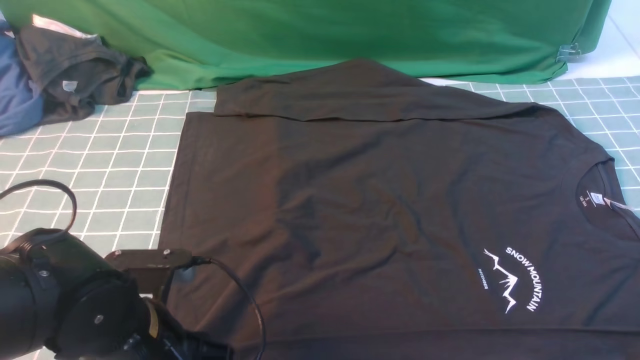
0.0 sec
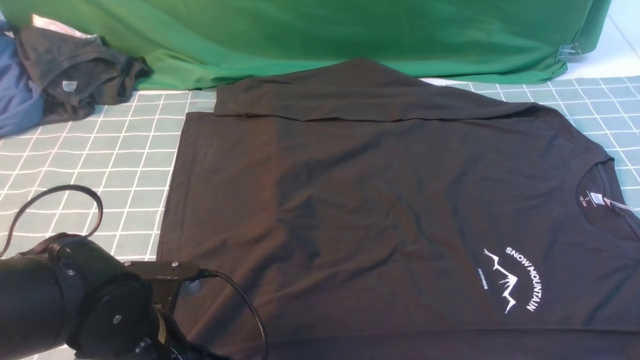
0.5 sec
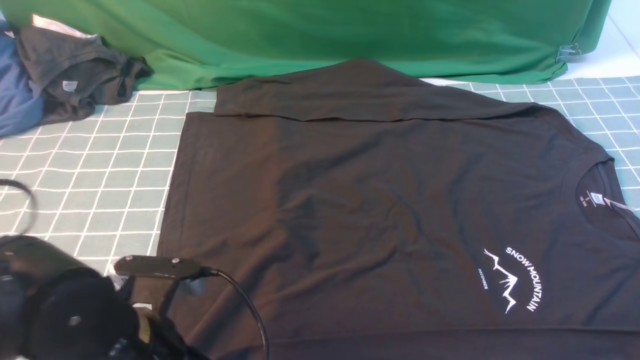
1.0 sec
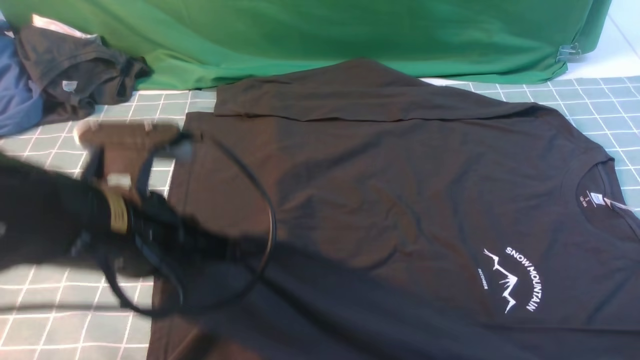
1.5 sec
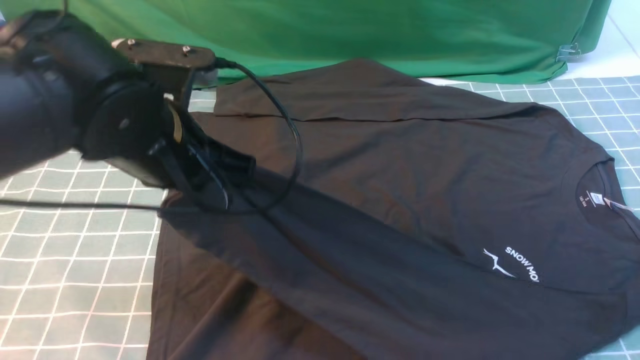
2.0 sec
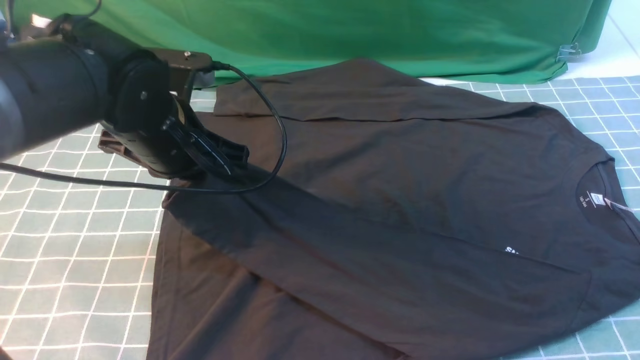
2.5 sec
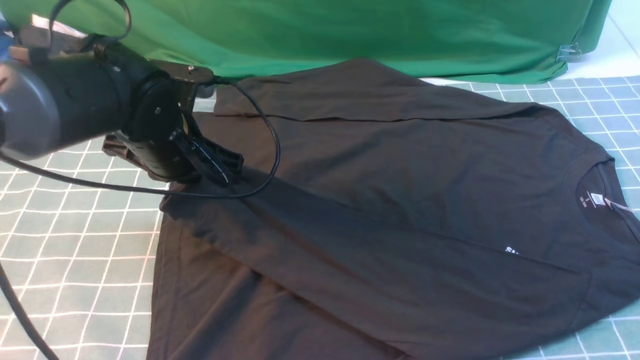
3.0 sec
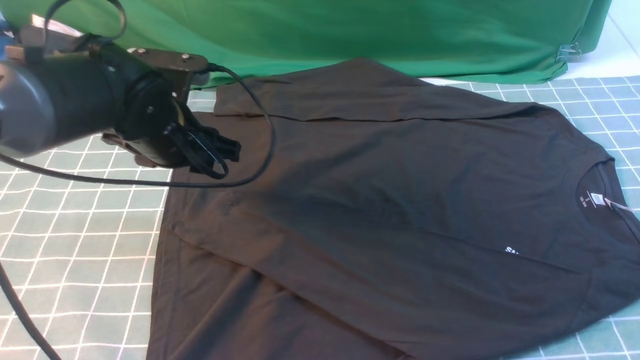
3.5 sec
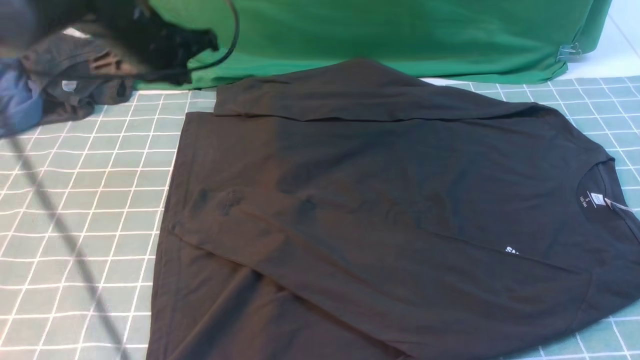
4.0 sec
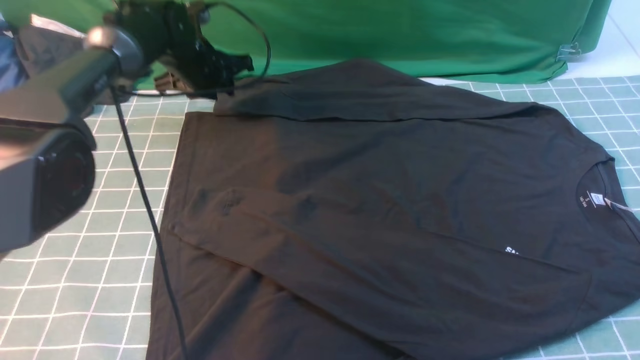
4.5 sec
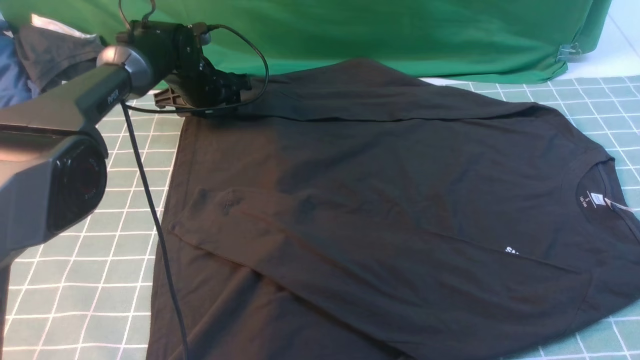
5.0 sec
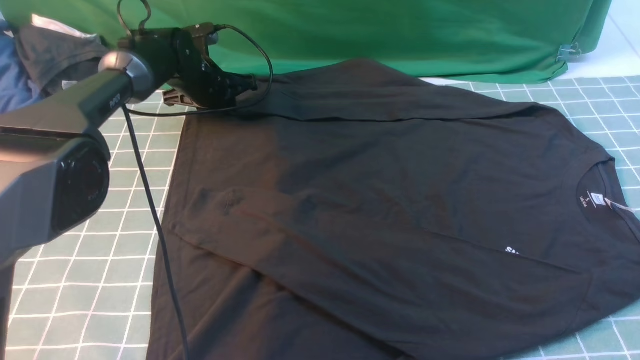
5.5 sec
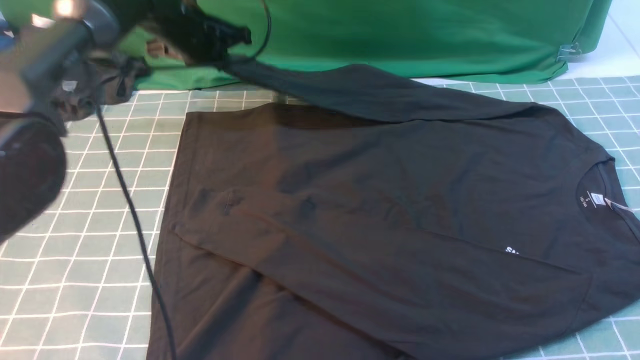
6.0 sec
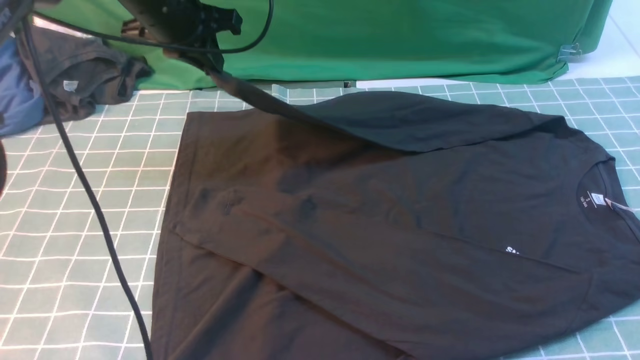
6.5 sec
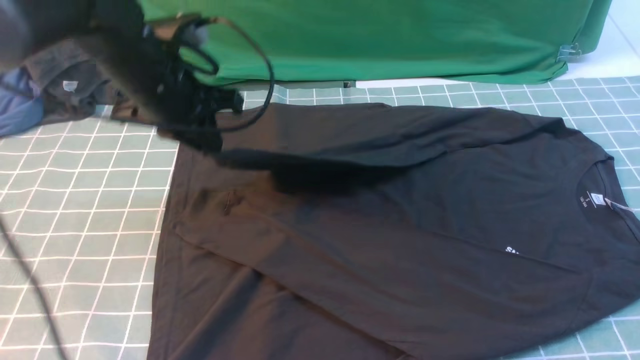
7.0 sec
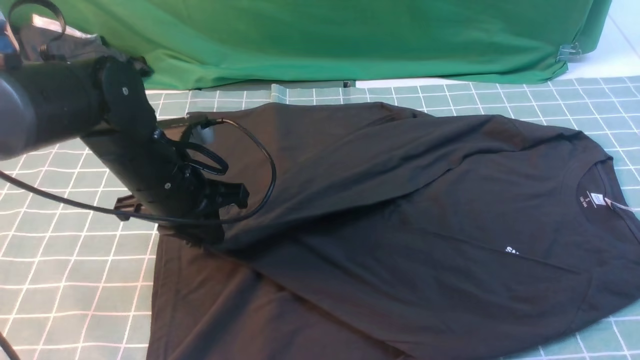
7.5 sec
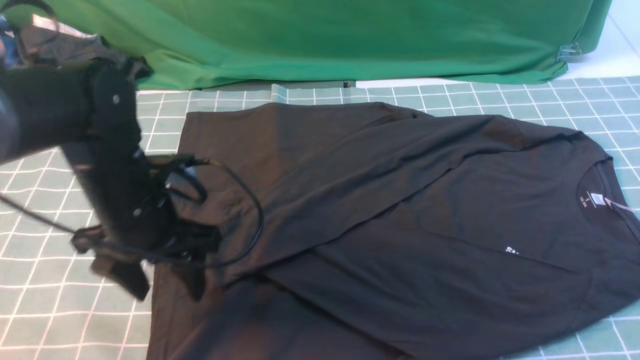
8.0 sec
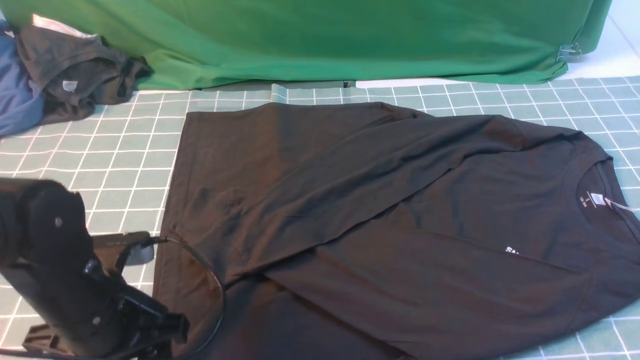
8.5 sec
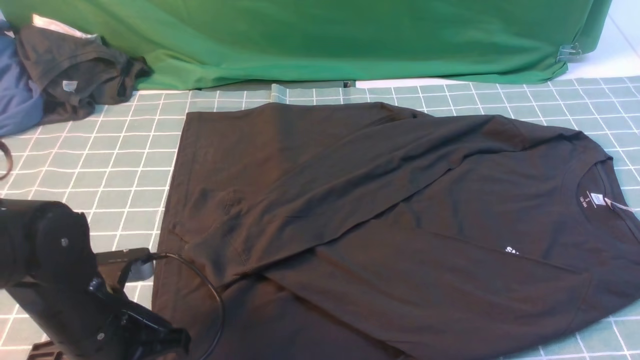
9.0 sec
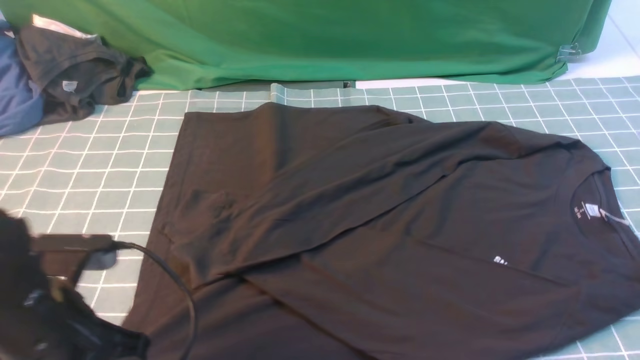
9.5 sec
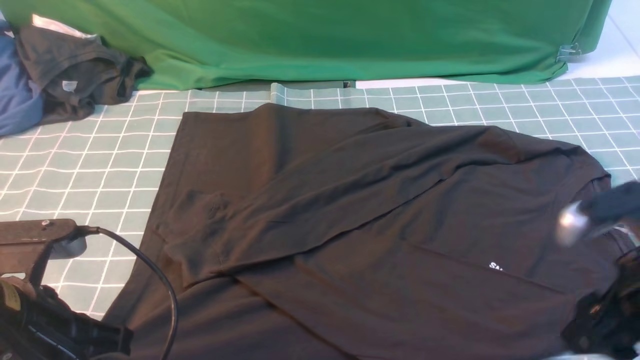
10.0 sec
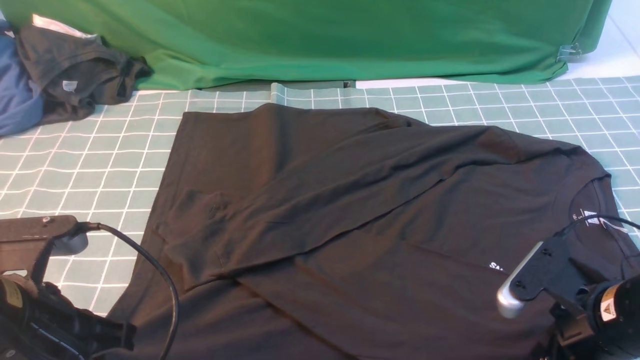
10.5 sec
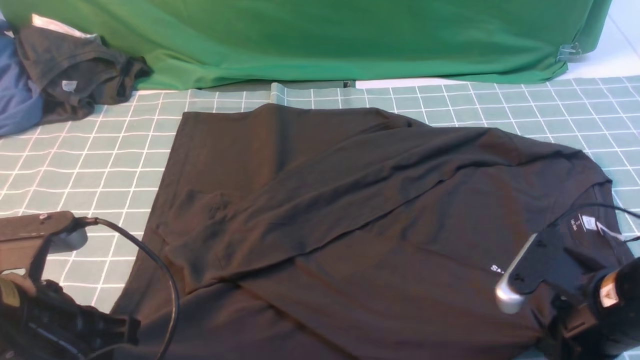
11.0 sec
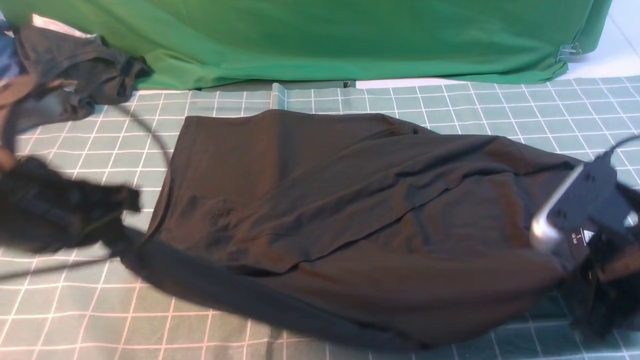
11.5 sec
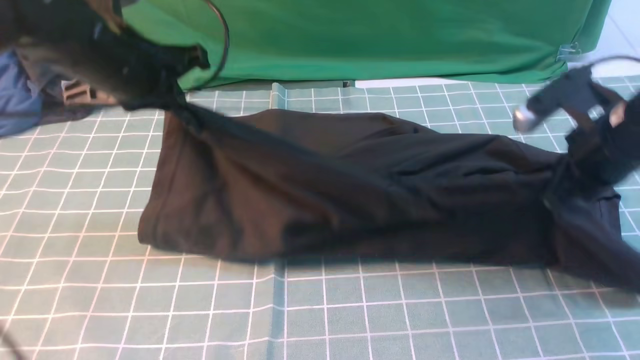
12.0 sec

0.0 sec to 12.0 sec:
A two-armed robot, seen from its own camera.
Step, 1.5 sec to 3.5 sec: use the left arm to drag and place the cuff at the centered position on the left edge of the fabric.
Step, 4.0 sec to 5.5 sec: use the left arm to clamp the cuff farthest from it.
Step, 6.0 sec to 8.0 sec: use the left arm to drag and drop the cuff onto the cuff closest to the left arm.
Step, 8.5 sec to 11.0 sec: use both arms simultaneously to clamp the lower edge of the clothing fabric.
0.0 sec to 2.0 sec: The left gripper travels upward and forward by approximately 15 cm, and closes.
2.0 sec to 4.0 sec: The left gripper heads forward, covering approximately 20 cm, and opens and closes again.
4.0 sec to 6.0 sec: The left gripper is displaced forward by some 5 cm, reaches approximately 10 cm downward, then returns, and opens, then closes again.
6.0 sec to 8.0 sec: The right gripper shifts roughly 5 cm forward, while the left gripper heads backward, covering approximately 25 cm, and opens up.
8.0 sec to 10.0 sec: The left gripper is displaced backward by some 15 cm, and closes its fingers. The right gripper travels downward by approximately 10 cm, and opens its fingers.
10.0 sec to 12.0 sec: Both grippers travel together forward, about 20 cm. The right gripper closes.

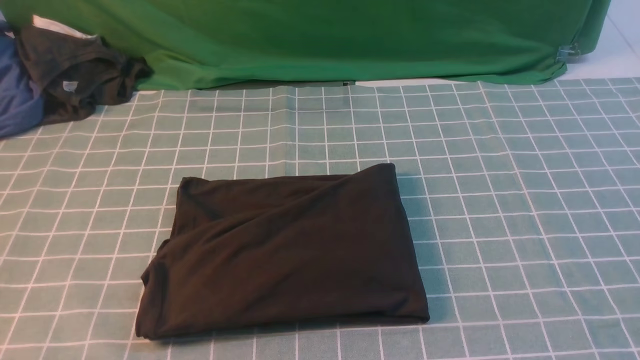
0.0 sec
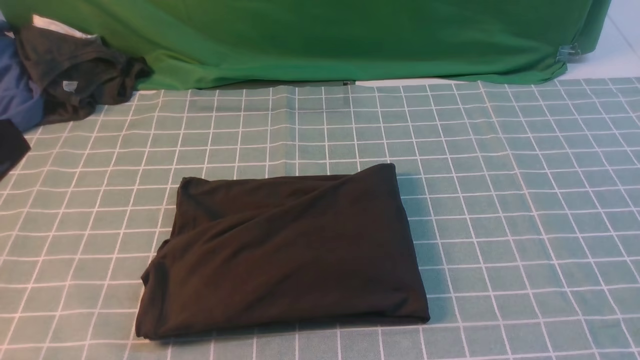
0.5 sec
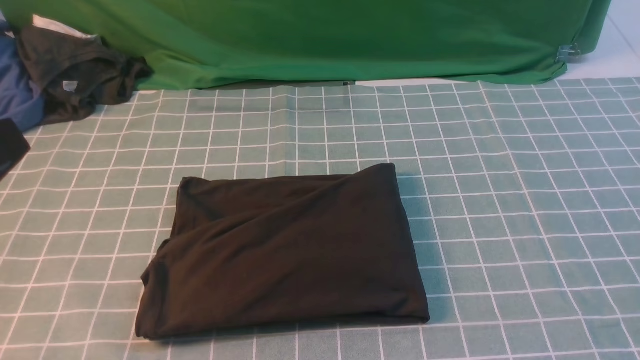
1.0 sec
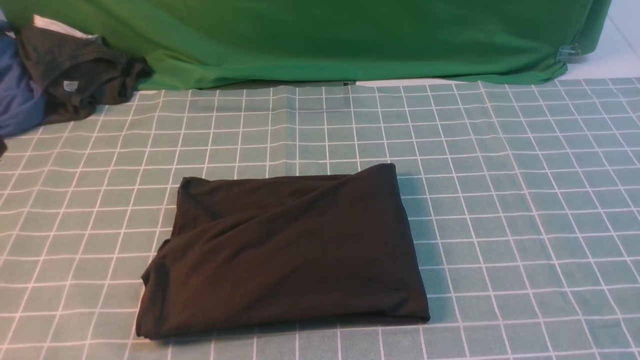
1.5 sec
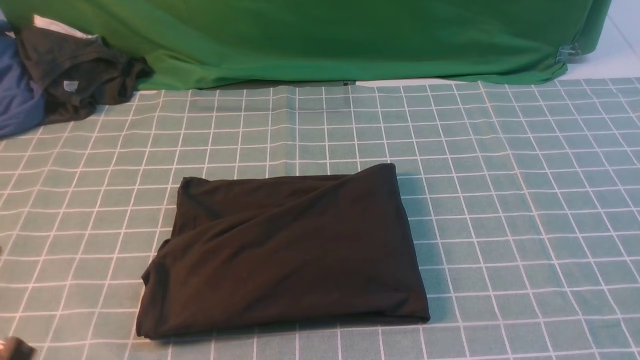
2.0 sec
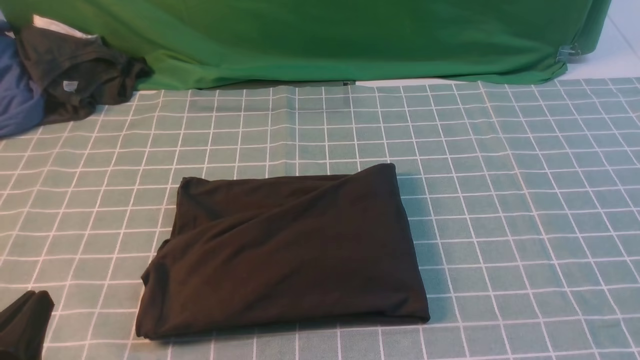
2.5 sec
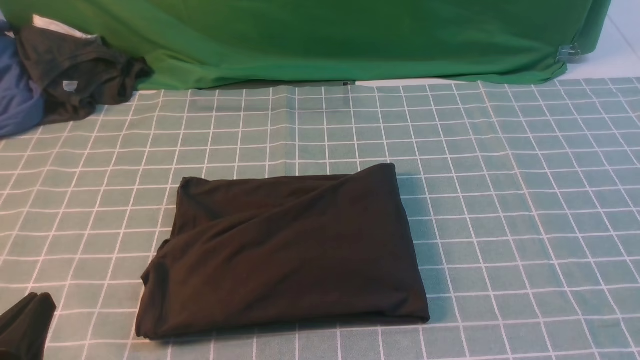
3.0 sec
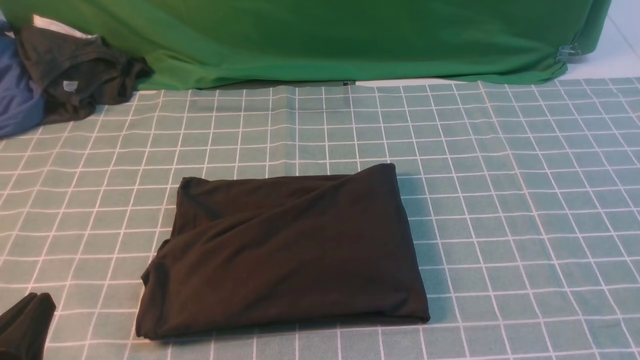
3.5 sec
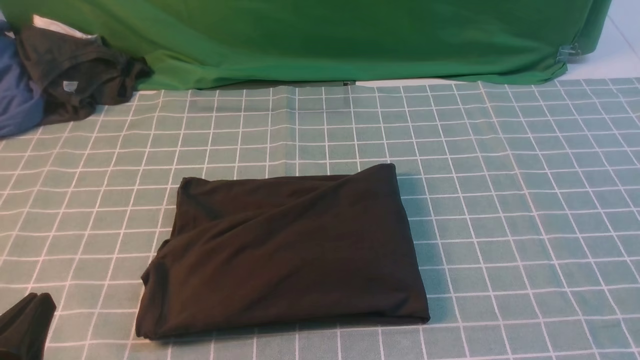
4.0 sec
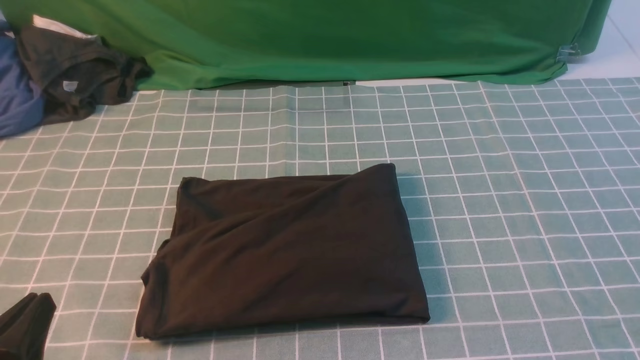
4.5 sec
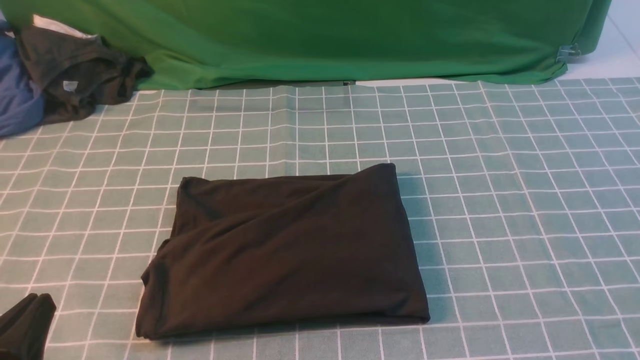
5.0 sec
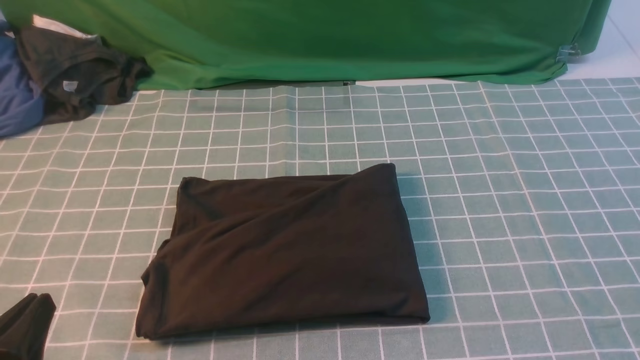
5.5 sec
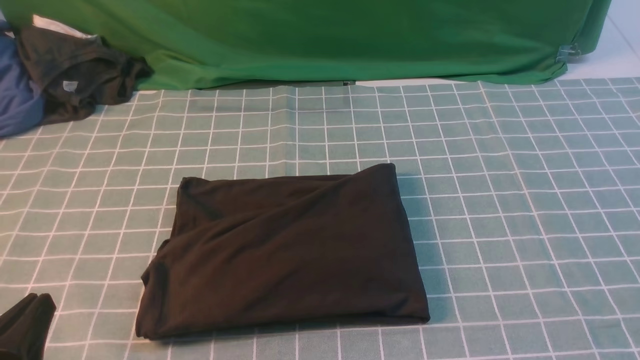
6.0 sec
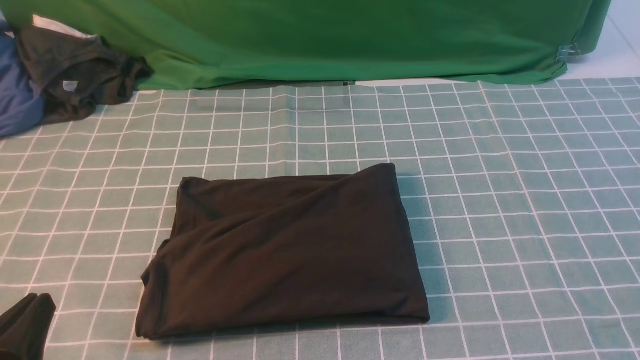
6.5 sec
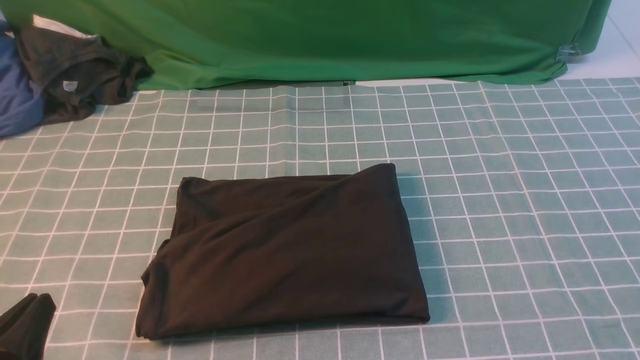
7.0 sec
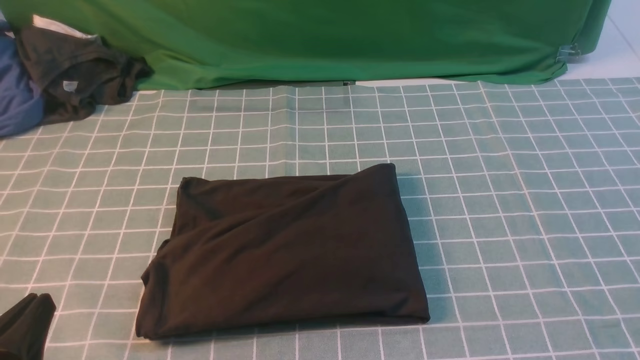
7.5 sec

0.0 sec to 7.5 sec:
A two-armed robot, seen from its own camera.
2.0 sec to 4.0 sec: The left gripper moves downward, about 5 cm.
5.5 sec to 7.5 sec: Both grippers stay put.
